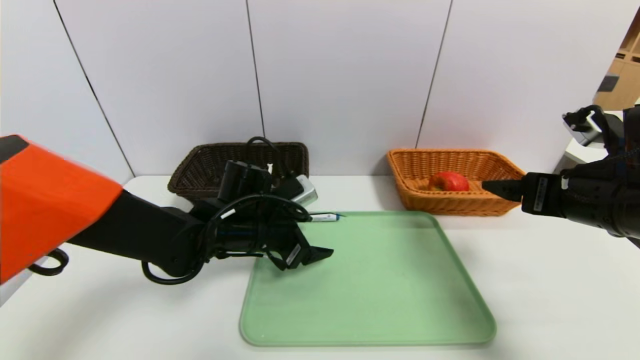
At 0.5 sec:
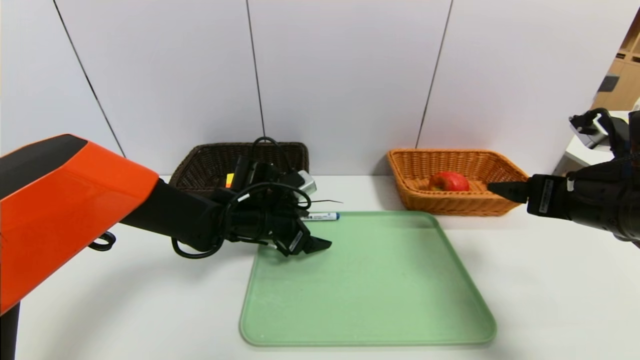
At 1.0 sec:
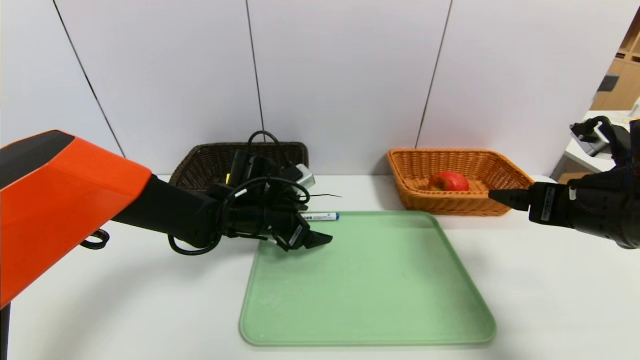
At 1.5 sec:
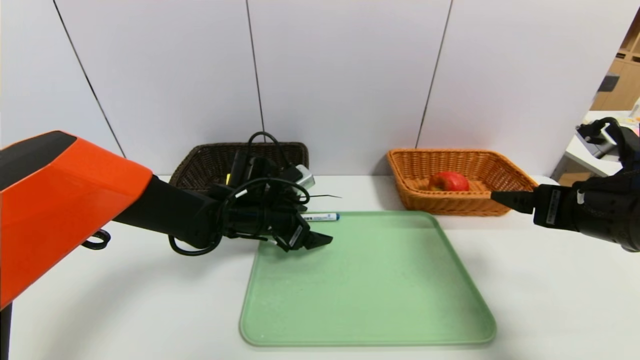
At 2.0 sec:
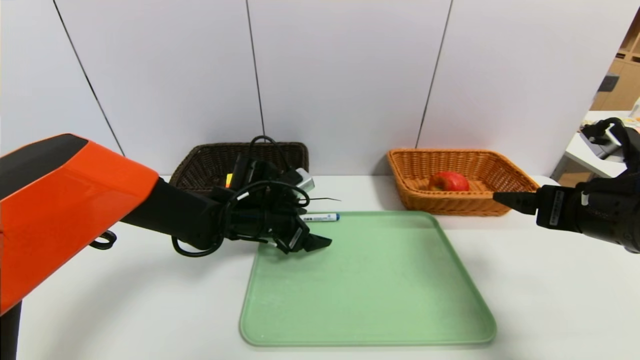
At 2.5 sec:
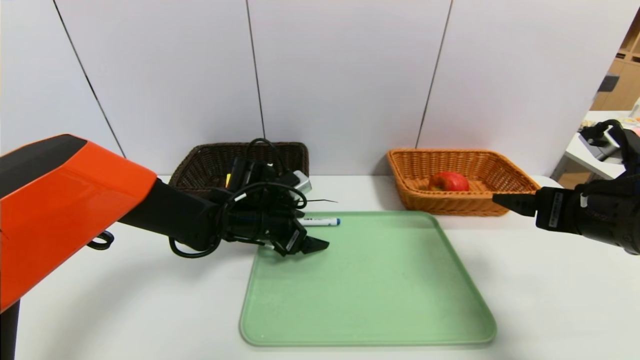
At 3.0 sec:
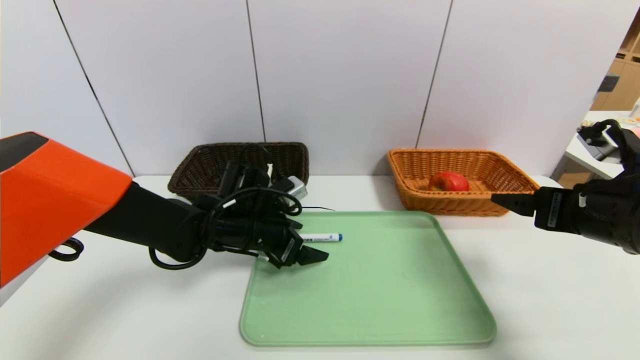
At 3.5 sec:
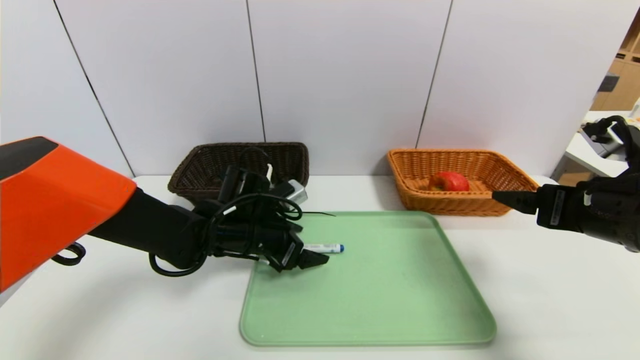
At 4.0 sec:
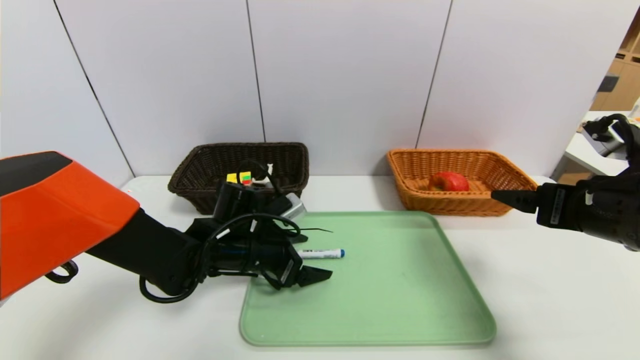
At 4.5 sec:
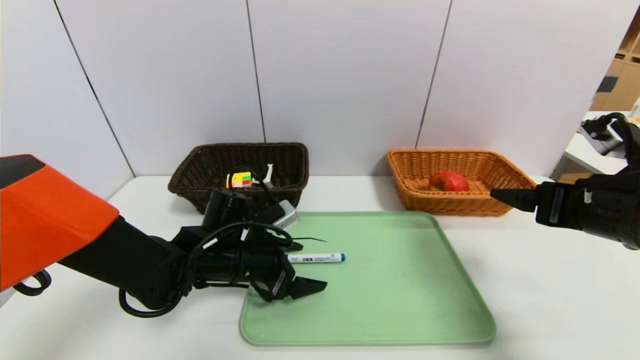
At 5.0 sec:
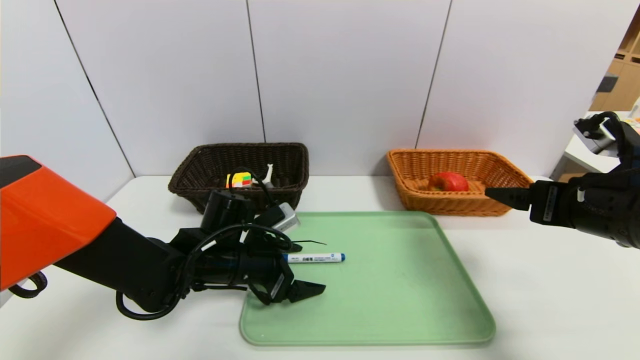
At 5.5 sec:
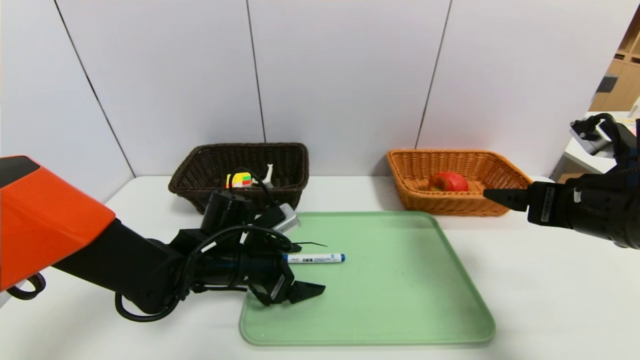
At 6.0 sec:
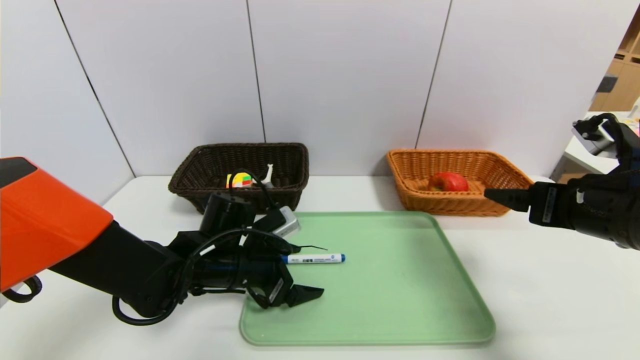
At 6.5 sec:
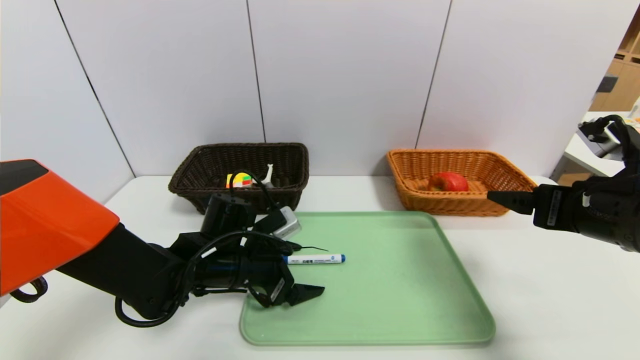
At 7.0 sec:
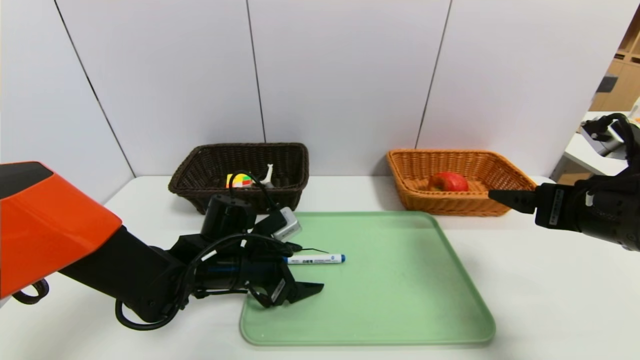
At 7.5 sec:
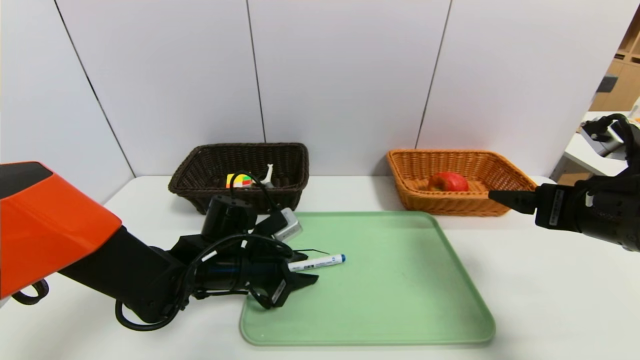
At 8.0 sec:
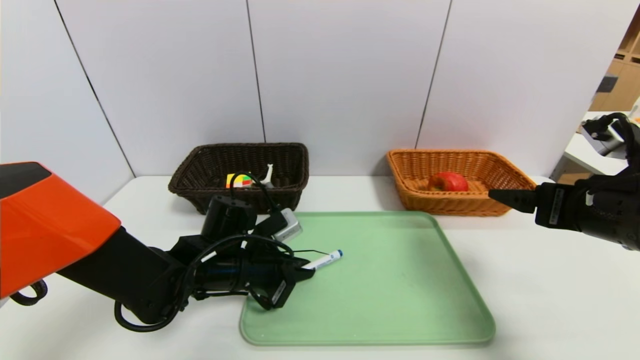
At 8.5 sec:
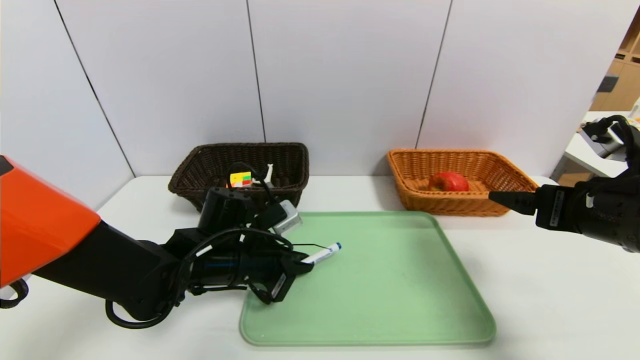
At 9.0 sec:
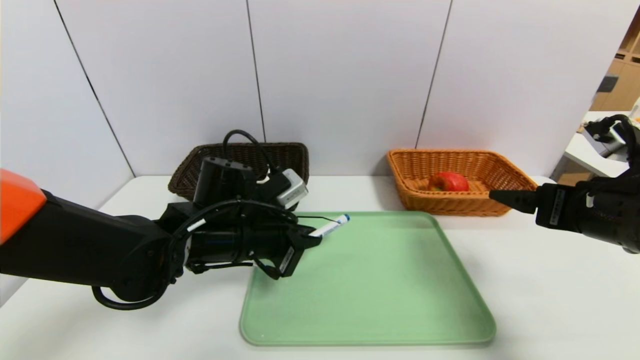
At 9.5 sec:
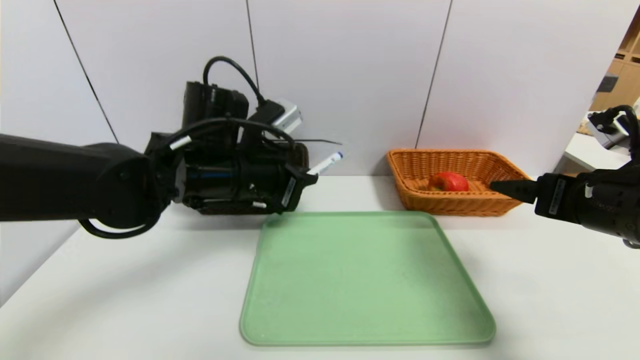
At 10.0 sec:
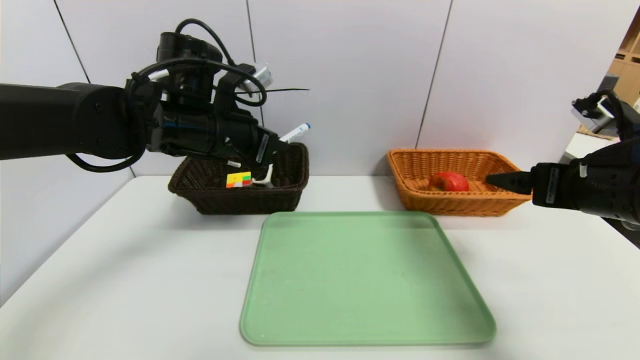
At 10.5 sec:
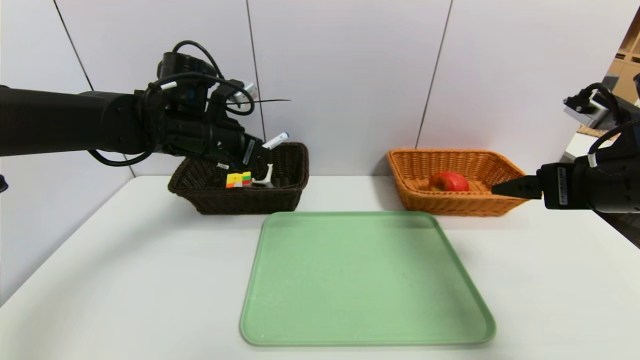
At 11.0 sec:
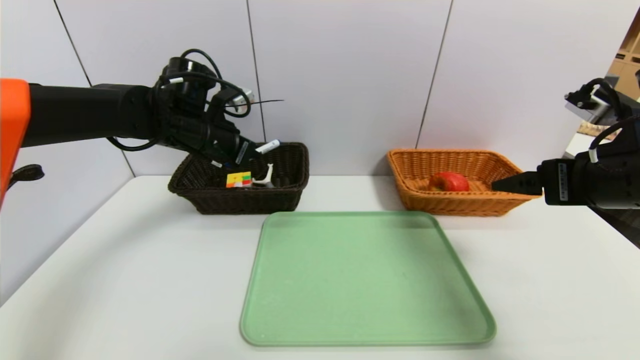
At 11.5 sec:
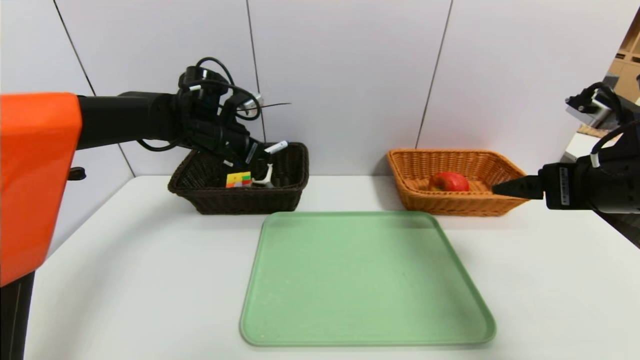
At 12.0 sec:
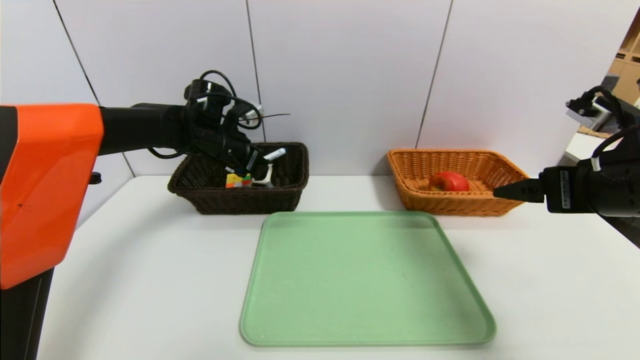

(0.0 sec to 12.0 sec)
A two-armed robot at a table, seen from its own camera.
Task of the whole recording: place the food in the right basket with the right gripper, and place the non food items in the left basket with the left gripper.
0.0 sec - 2.0 sec: There are only small adjustments of the grippers.
2.0 sec - 4.0 sec: The left gripper ends up some 5 cm from where it was.
4.0 sec - 6.0 sec: There are only small adjustments of the grippers.
6.0 sec - 8.0 sec: The left gripper closes.
8.0 sec - 10.0 sec: The left gripper travels upward by about 20 cm.
10.0 sec - 12.0 sec: The left gripper moves forward and downward, about 15 cm.

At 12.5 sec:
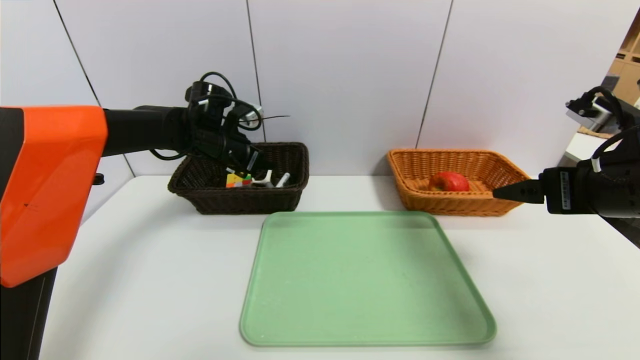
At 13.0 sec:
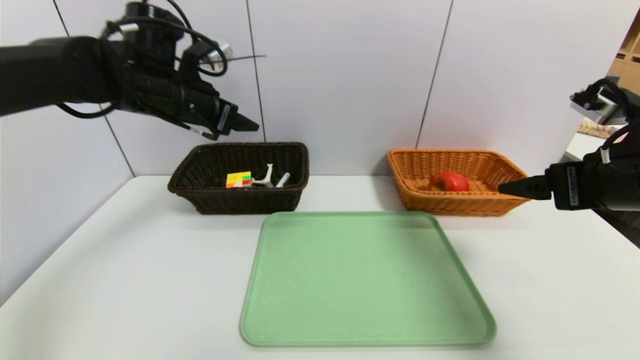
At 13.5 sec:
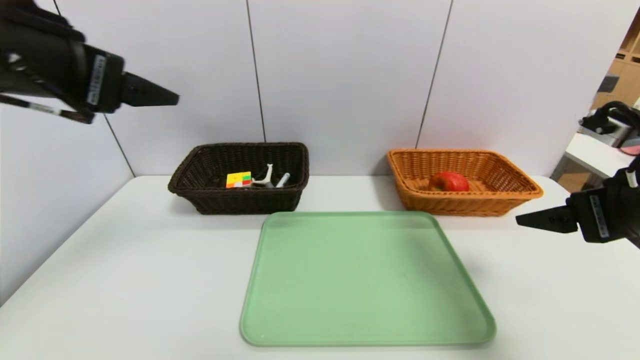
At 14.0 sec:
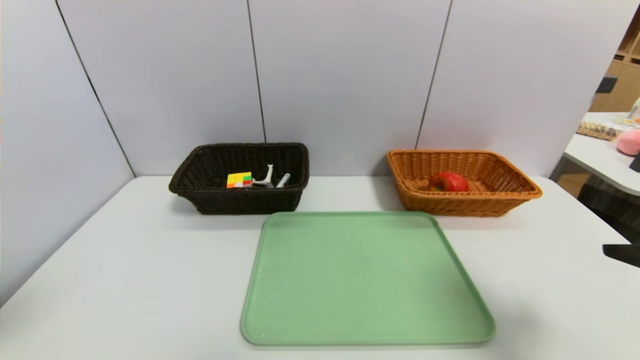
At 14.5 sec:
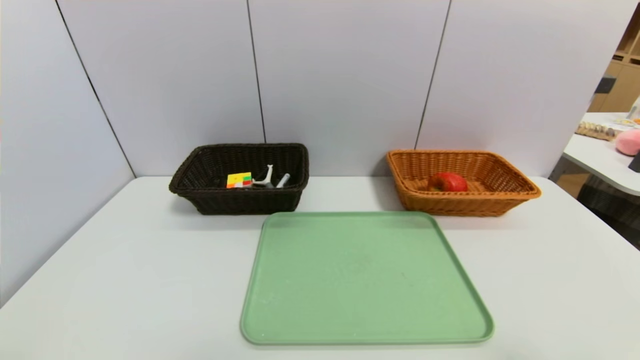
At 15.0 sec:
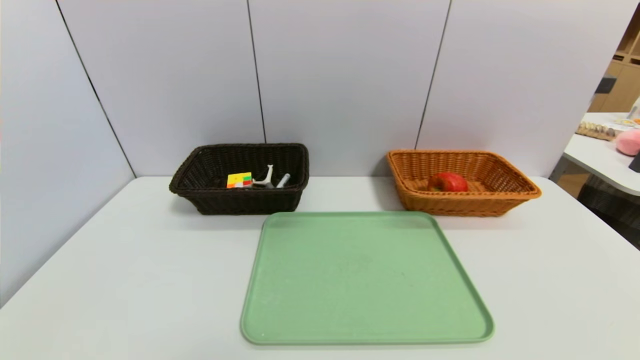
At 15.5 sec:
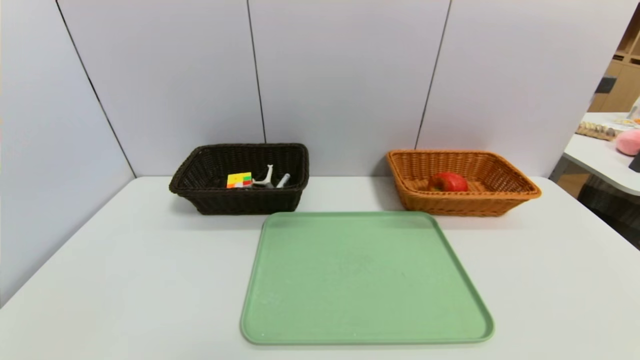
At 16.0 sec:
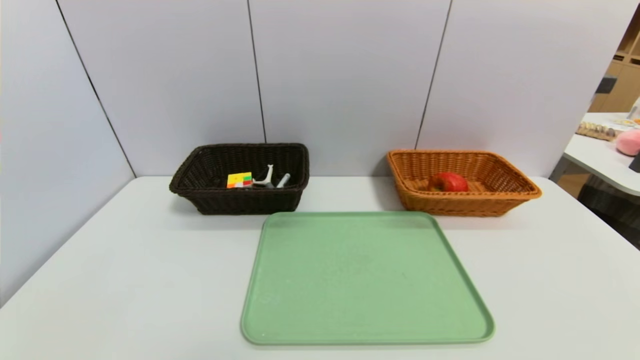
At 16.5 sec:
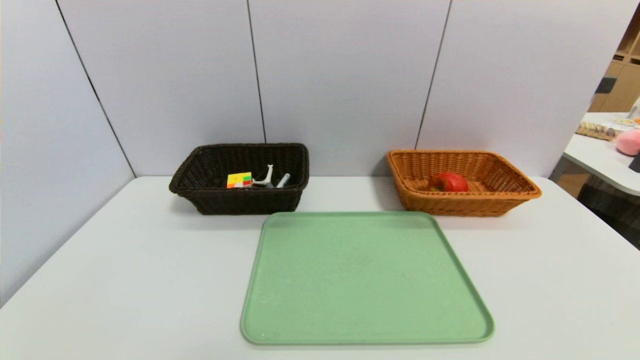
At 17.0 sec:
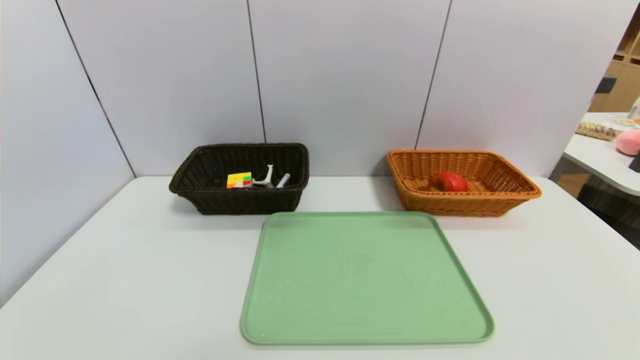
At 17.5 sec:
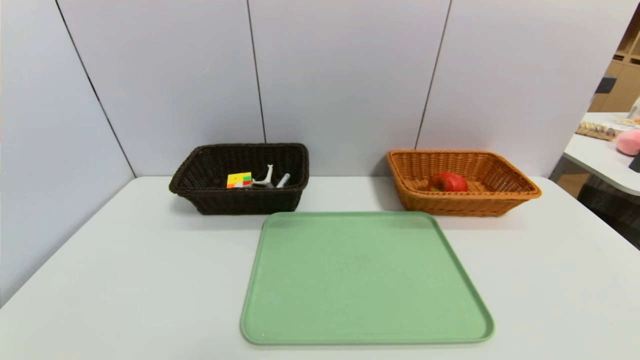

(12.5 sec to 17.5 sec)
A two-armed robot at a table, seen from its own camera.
Task of the whole recording: place the food in the right basket with the right gripper, and place the non food items in the left basket with the left gripper.
12.5 sec - 15.0 sec: The right gripper moves backward, some 30 cm, while the left gripper moves backward, some 50 cm, and opens.

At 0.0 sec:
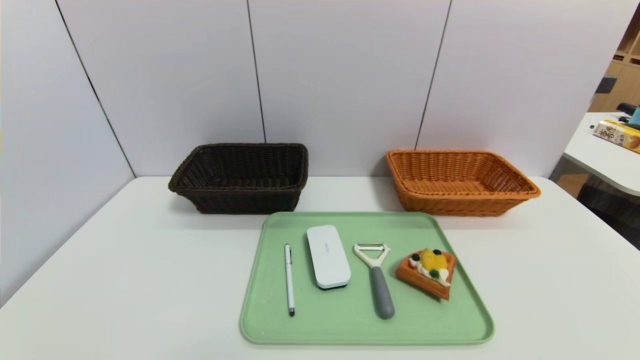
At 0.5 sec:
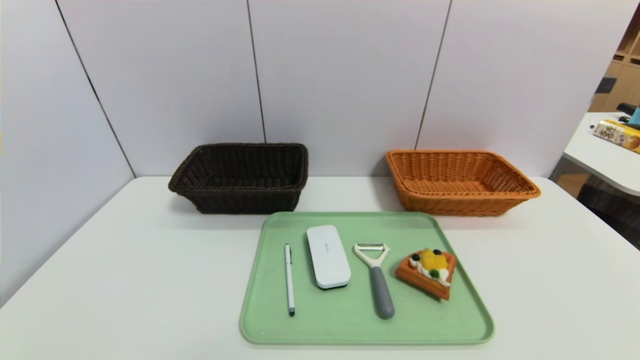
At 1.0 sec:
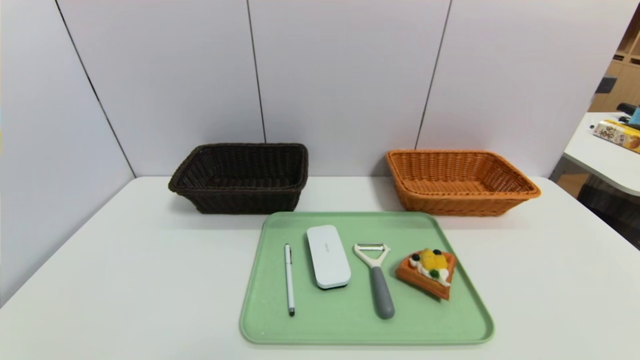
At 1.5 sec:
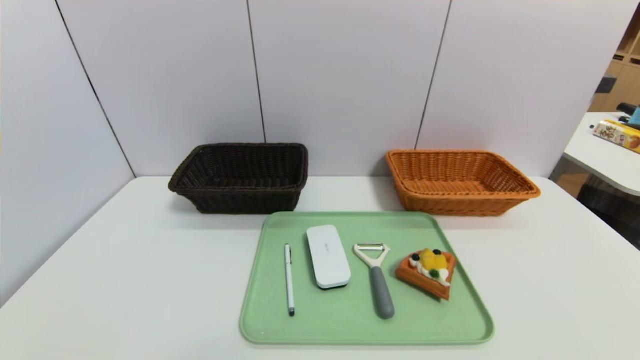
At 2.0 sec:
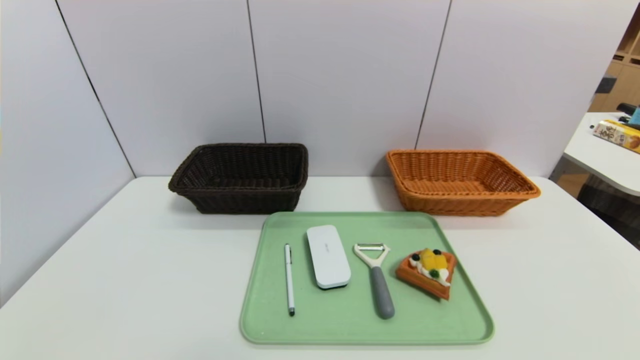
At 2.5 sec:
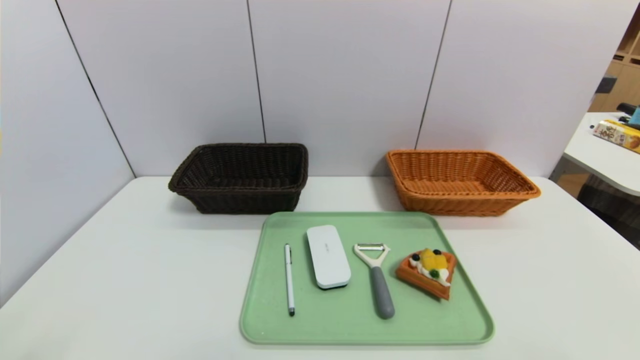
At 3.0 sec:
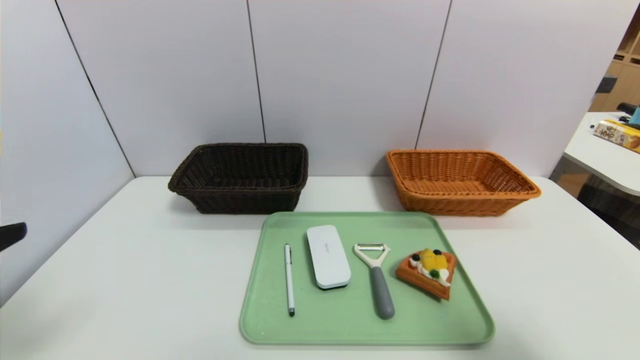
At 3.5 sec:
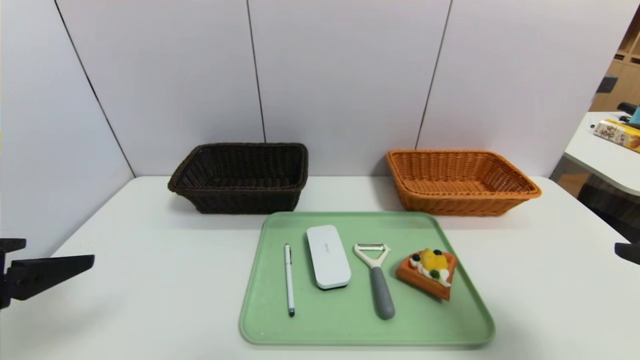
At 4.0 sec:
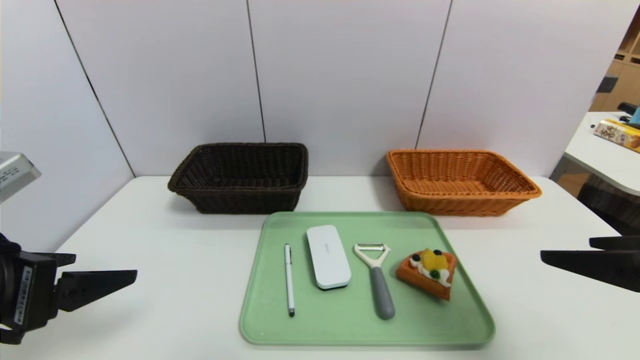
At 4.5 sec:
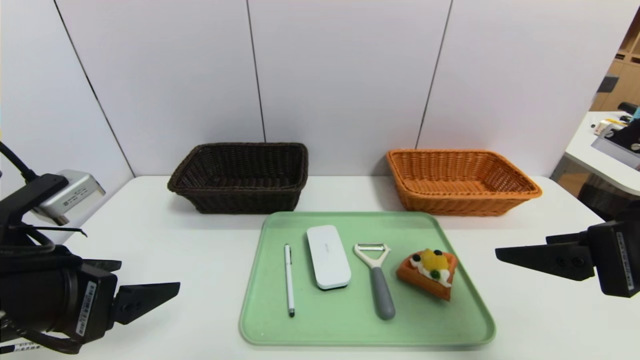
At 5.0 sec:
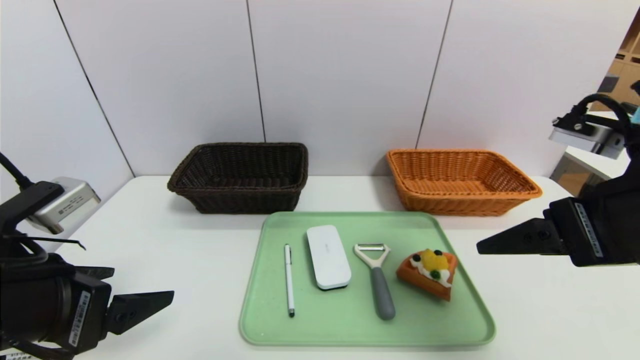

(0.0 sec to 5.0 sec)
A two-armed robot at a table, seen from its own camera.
Task of the whole recording: place the food in the right basket with the right gripper, and place the non food items in the left basket with the left gripper.
2.5 sec - 5.0 sec: The right gripper goes approximately 20 cm forward and to the left, while the left gripper moves forward and to the right, some 15 cm.
